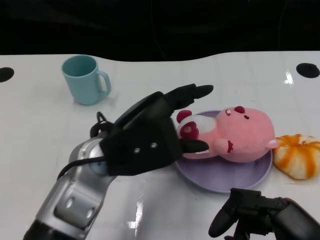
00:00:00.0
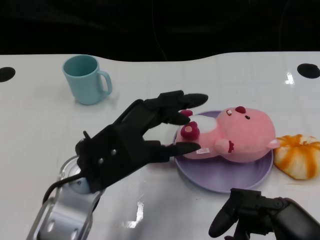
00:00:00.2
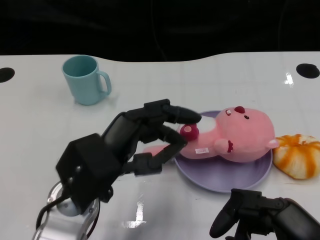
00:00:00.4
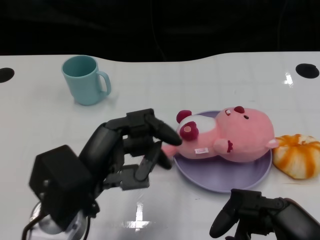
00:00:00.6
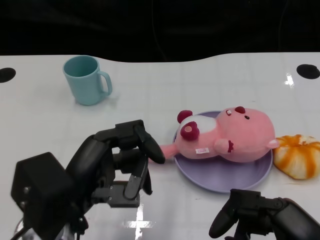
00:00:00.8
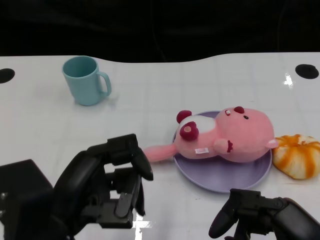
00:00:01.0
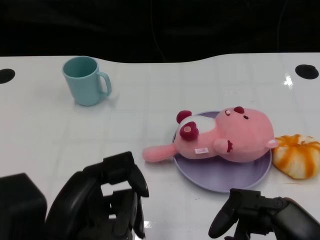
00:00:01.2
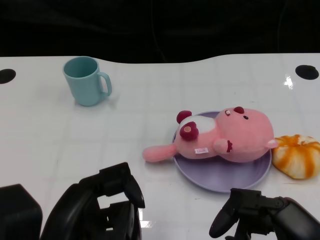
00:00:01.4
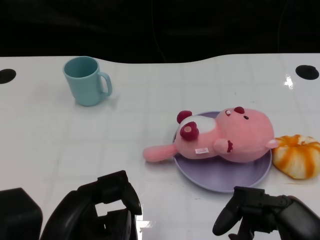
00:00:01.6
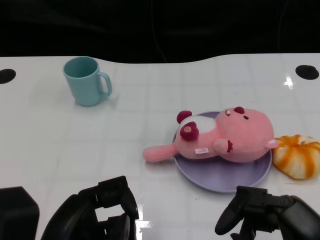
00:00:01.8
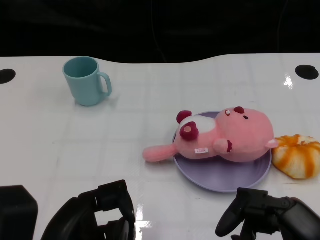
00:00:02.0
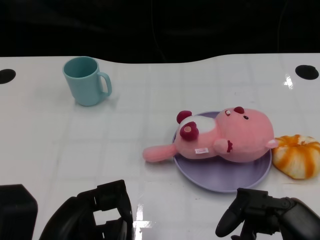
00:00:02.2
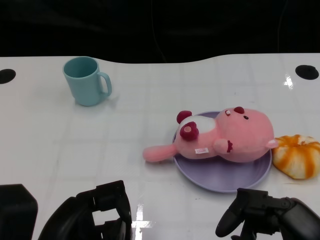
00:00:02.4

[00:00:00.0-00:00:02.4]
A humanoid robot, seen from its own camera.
Task of the whole recording: Pick up the doll on one side of the plate and place it into the plate.
00:00:00.0 to 00:00:01.2: The left hand moves backward and to the left, some 15 cm.
00:00:01.2 to 00:00:02.4: The hands make only small movements.
